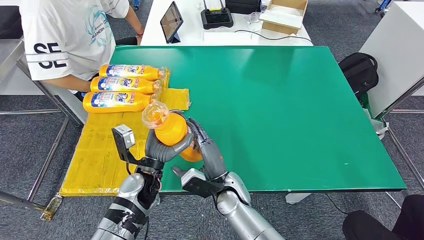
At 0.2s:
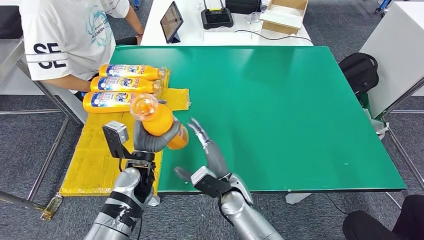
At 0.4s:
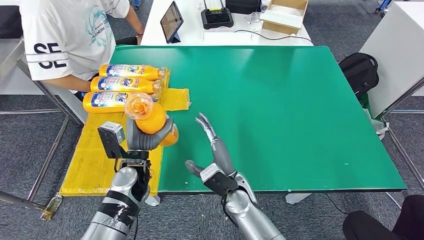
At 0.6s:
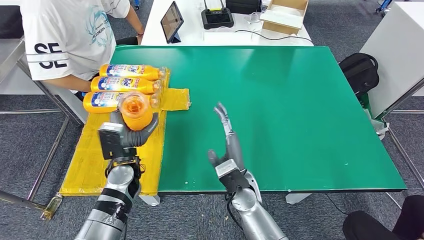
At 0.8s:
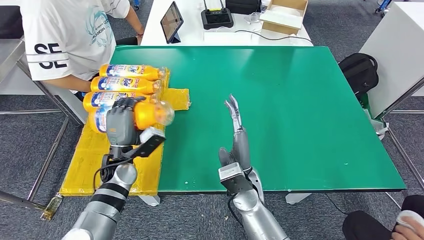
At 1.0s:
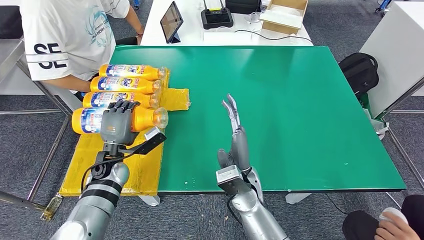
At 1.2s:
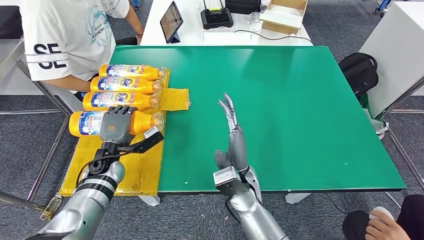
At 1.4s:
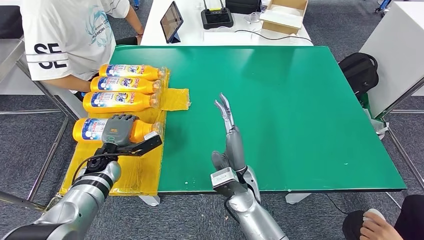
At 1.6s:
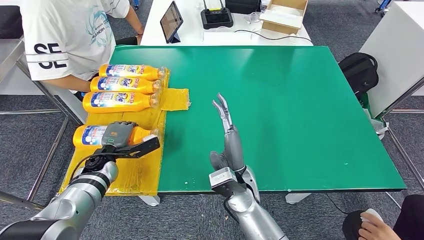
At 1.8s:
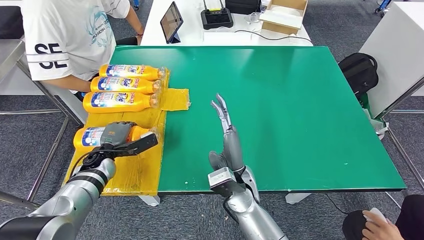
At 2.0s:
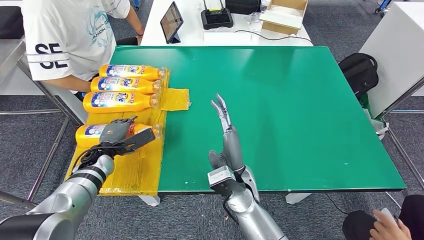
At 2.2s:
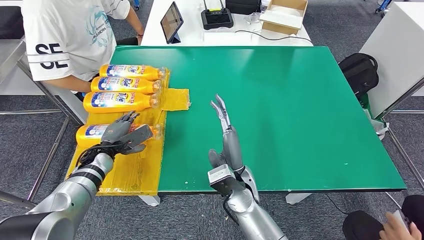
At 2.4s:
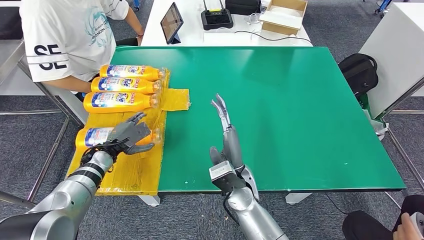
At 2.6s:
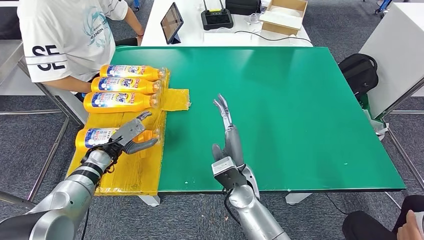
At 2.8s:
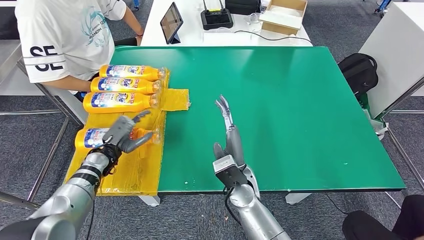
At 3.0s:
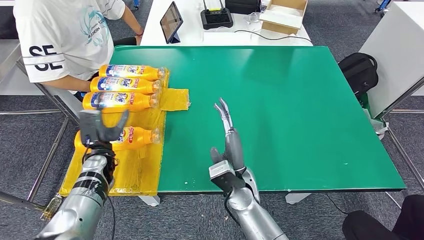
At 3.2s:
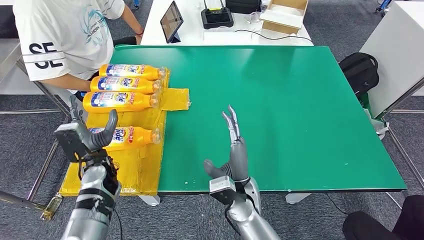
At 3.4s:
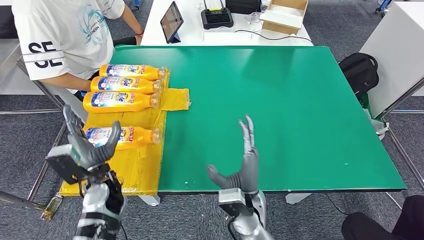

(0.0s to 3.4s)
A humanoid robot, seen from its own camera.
Step, 0.0s - 3.4s: Flip the bottle to face forward.
0.0s - 1.6s: The right hand moves upward, approximately 5 cm. Meanwhile the left hand travels to the left and forward by approximately 20 cm.
1.6s - 3.4s: The left hand goes roughly 10 cm backward and to the right, while the right hand shifts by about 5 cm.
